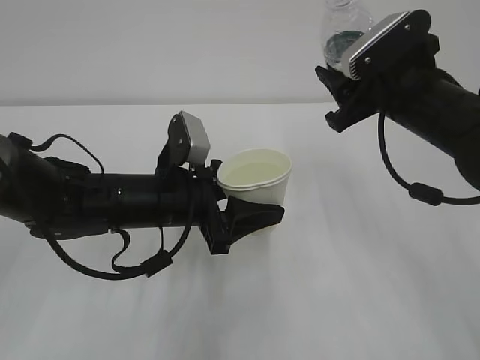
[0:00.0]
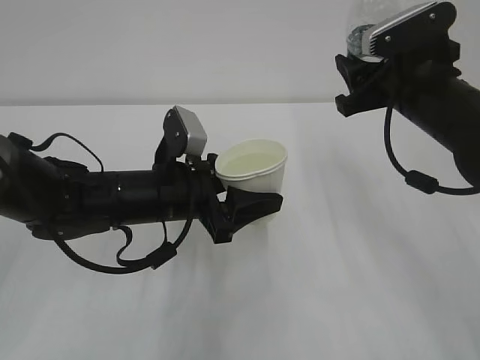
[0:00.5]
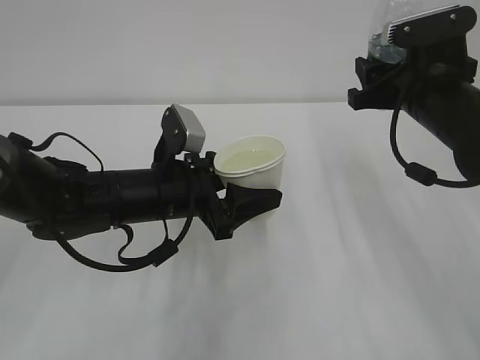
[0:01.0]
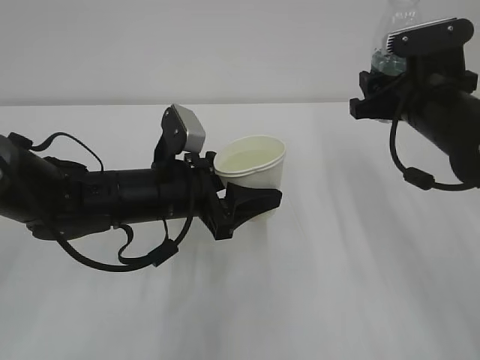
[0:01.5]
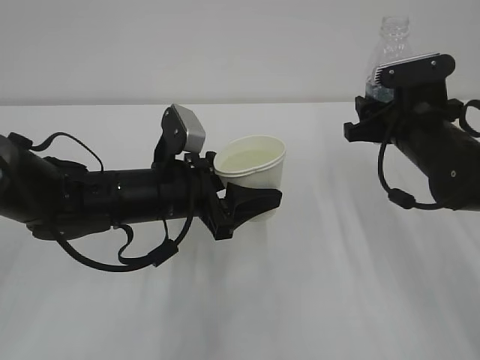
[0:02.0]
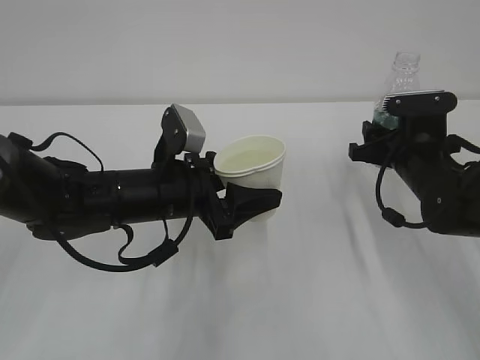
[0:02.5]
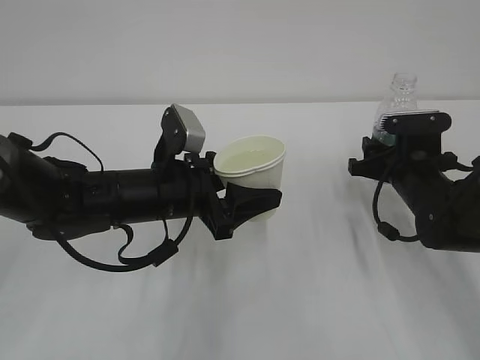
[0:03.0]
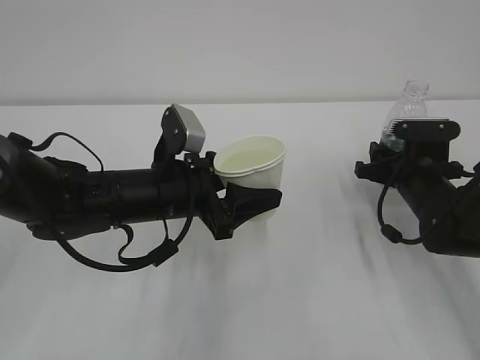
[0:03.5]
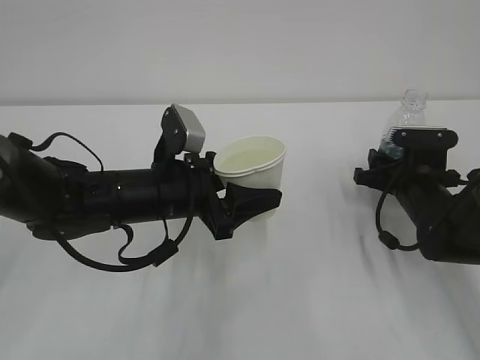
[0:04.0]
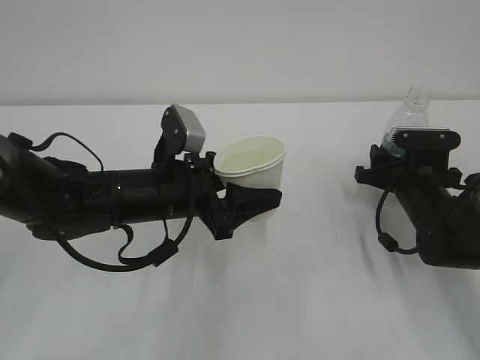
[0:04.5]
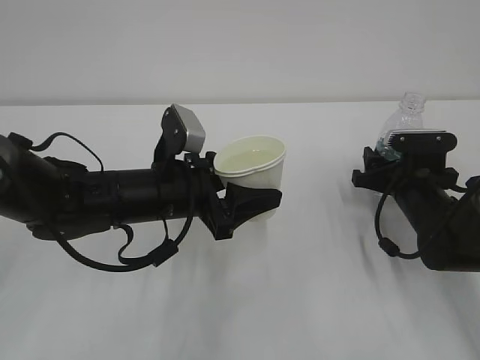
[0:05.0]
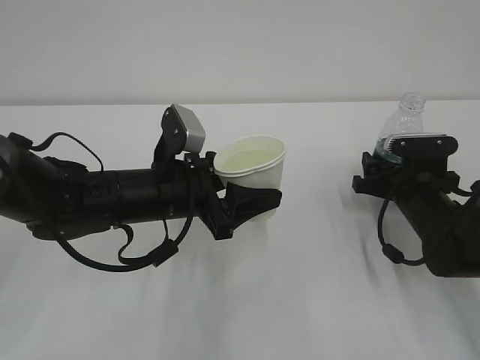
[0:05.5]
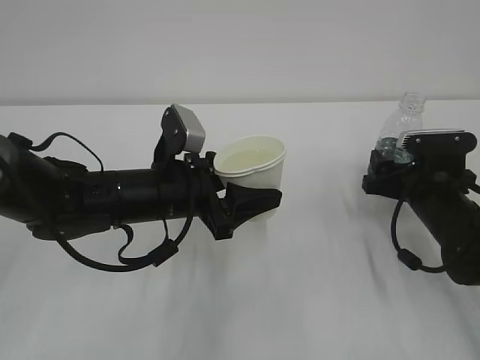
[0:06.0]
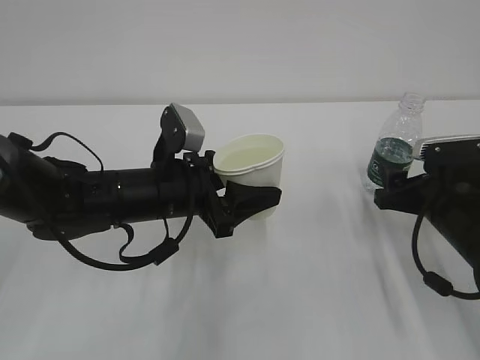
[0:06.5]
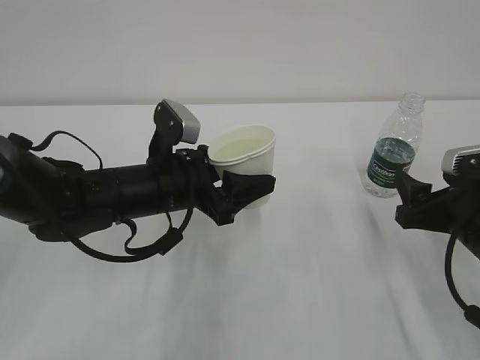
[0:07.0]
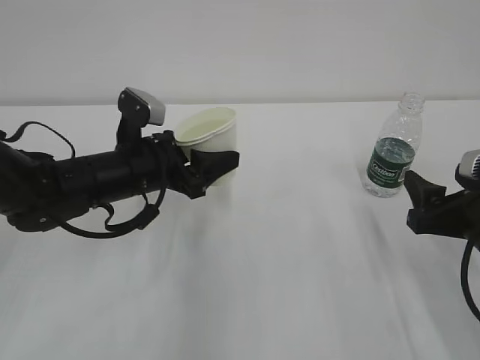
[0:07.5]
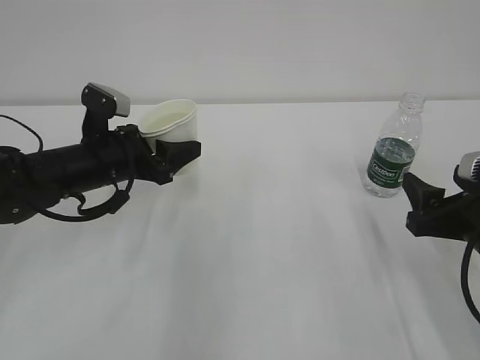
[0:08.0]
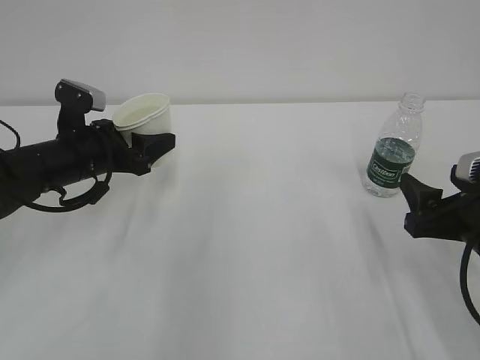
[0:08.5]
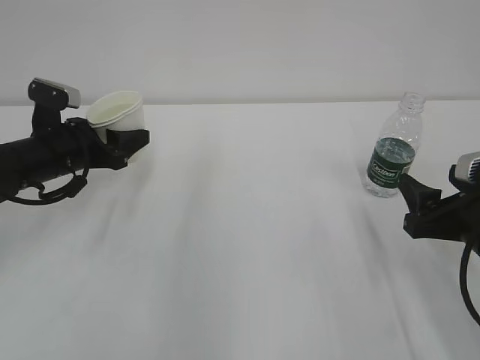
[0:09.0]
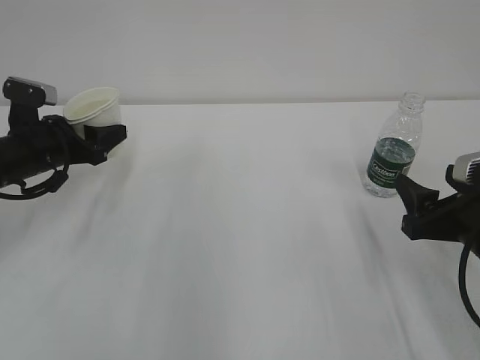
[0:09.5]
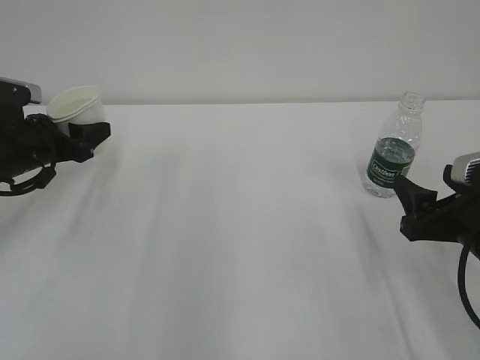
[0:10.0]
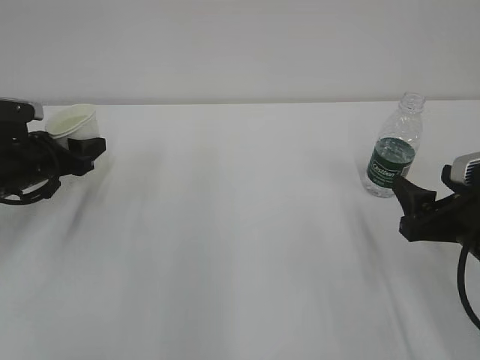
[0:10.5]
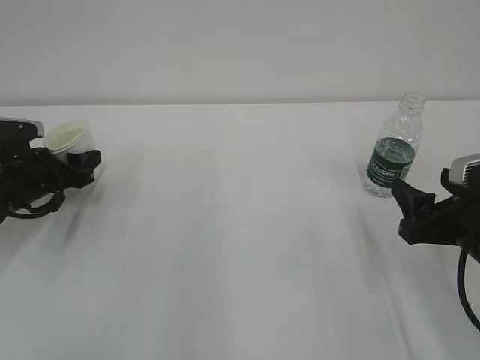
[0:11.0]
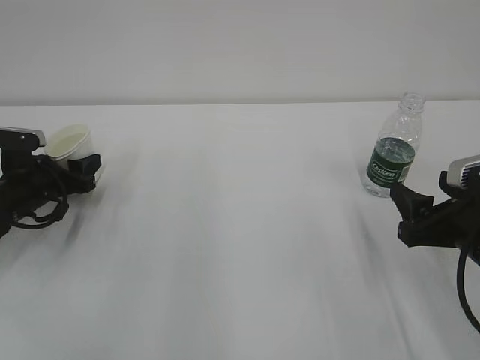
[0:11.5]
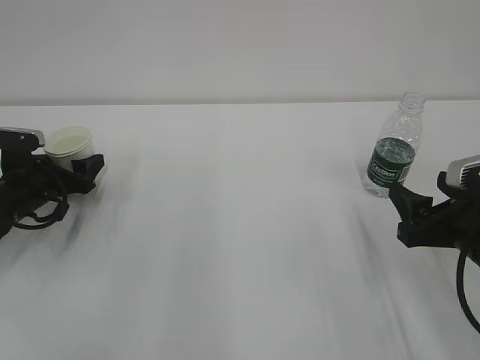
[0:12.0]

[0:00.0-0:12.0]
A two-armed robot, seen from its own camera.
0:00.0 to 0:02.0: The right gripper travels downward by some 5 cm.
0:02.0 to 0:04.0: The right gripper moves downward, about 10 cm.
0:04.0 to 0:06.0: The right gripper opens its fingers.
0:06.0 to 0:08.0: The right gripper travels backward and upward by about 10 cm. The left gripper goes roughly 10 cm to the left and forward.
0:08.0 to 0:10.0: The left gripper moves to the left, some 10 cm.
0:10.0 to 0:12.0: The left gripper shifts roughly 10 cm downward, and opens.

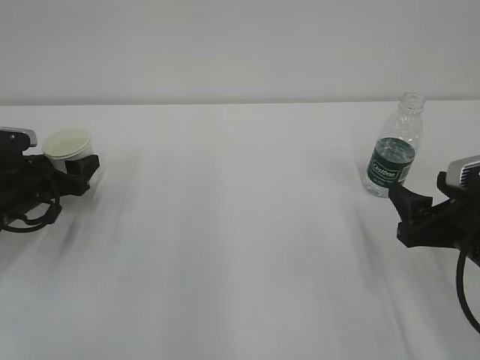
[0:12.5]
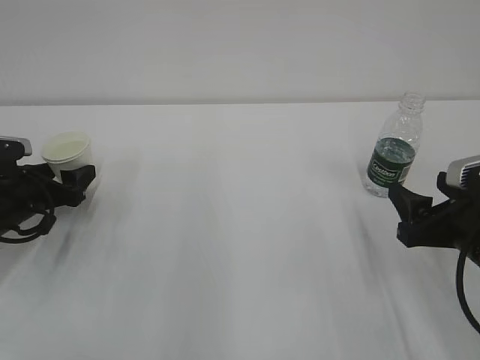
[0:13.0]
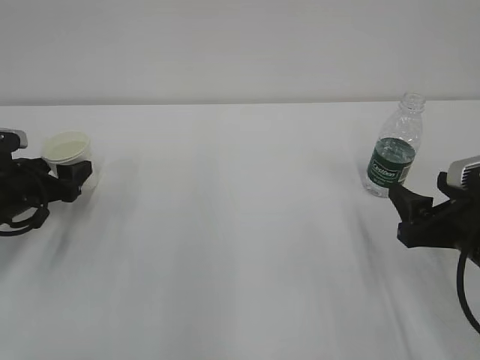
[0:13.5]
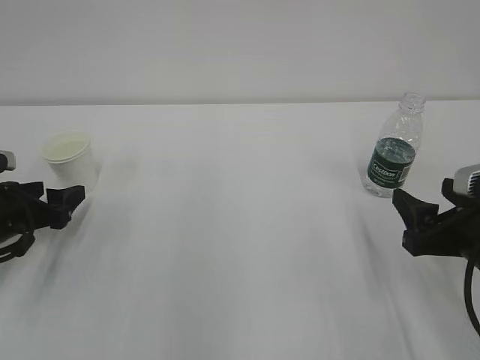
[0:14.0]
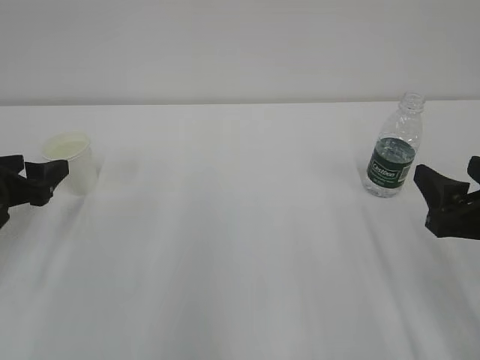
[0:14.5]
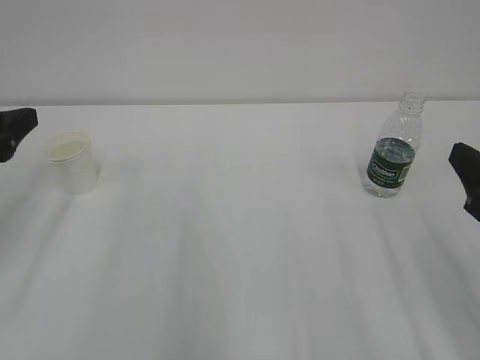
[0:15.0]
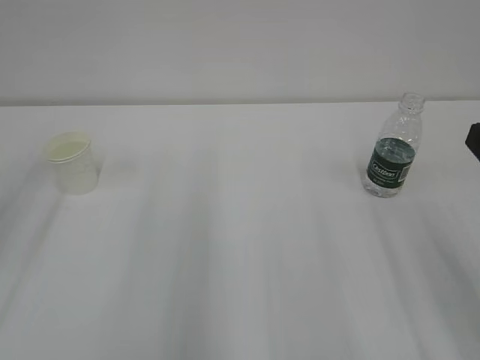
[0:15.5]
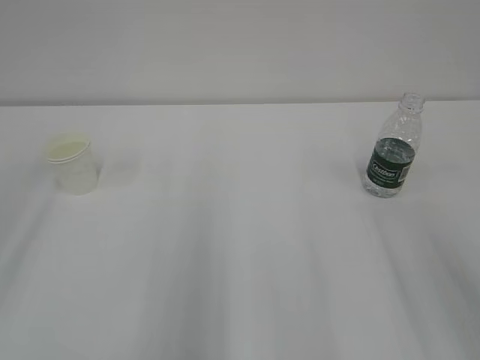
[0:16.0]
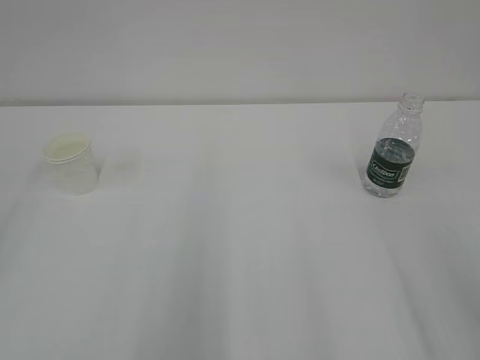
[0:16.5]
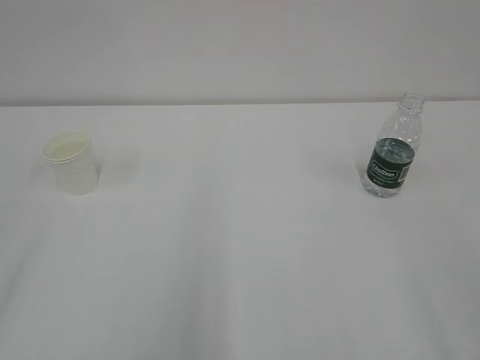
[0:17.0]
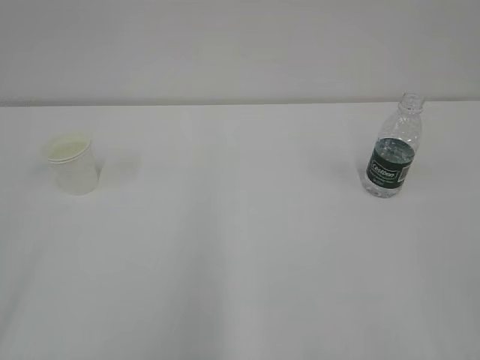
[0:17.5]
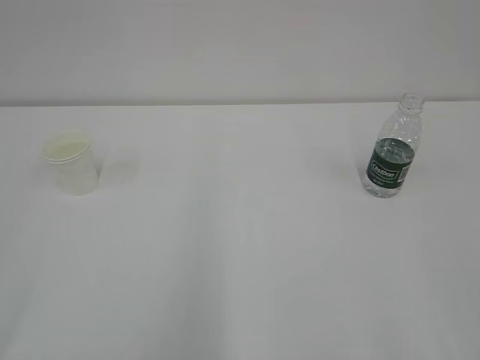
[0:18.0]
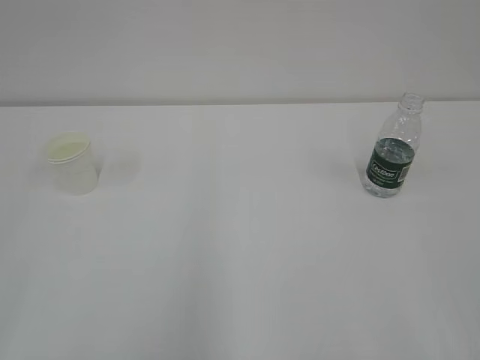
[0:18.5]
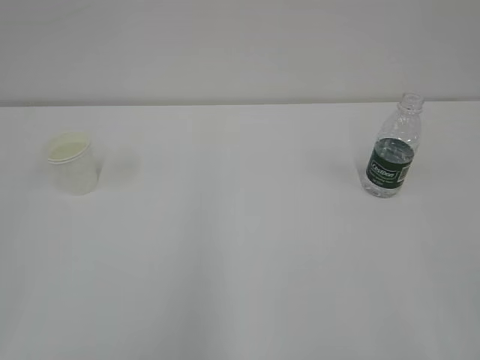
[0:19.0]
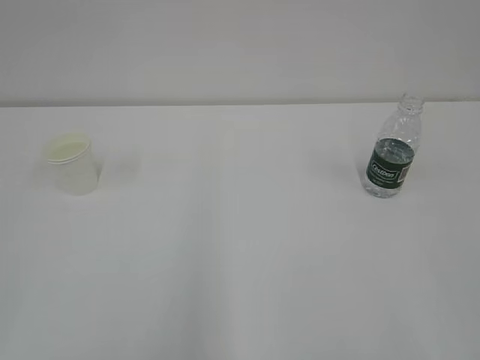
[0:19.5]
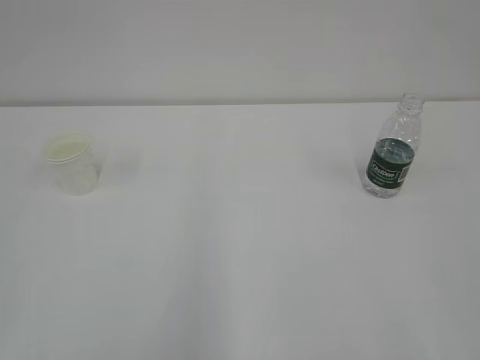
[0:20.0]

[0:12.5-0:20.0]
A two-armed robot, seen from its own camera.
0:12.5 to 0:14.5: The left gripper shifts some 10 cm backward and upward.
0:14.5 to 0:16.5: The right gripper heads upward and backward, covering roughly 20 cm, while the left gripper moves backward and upward, some 25 cm.

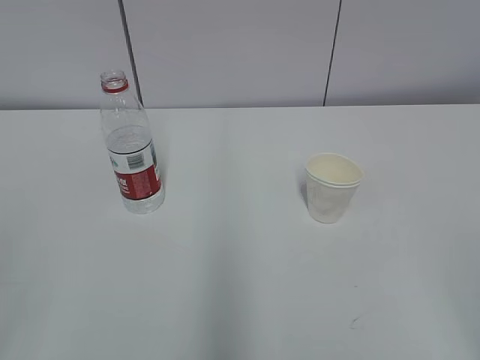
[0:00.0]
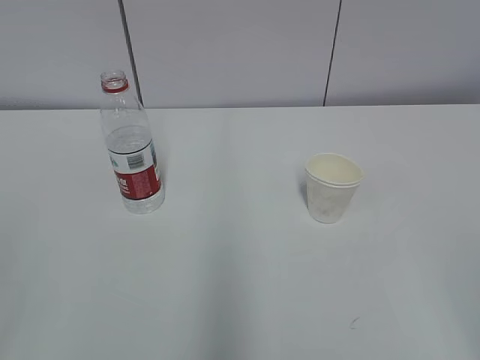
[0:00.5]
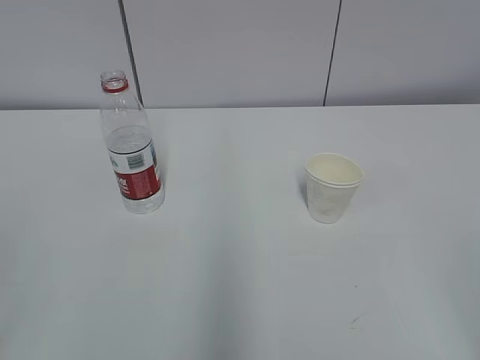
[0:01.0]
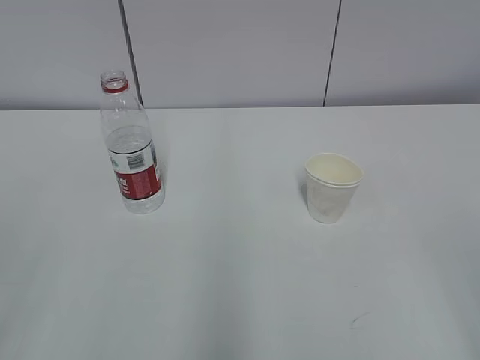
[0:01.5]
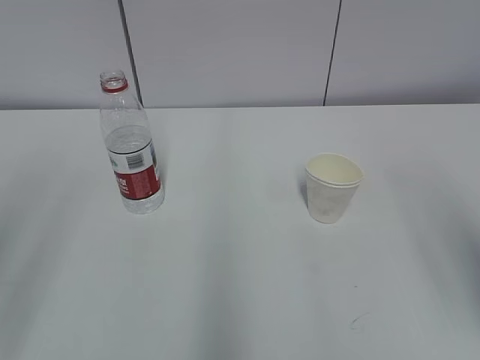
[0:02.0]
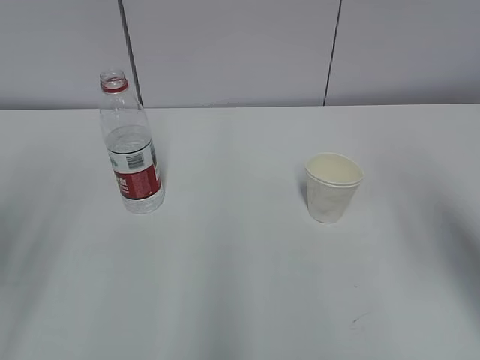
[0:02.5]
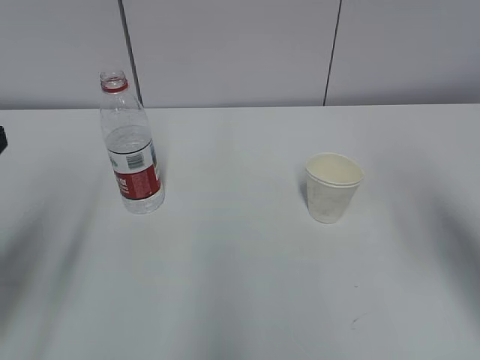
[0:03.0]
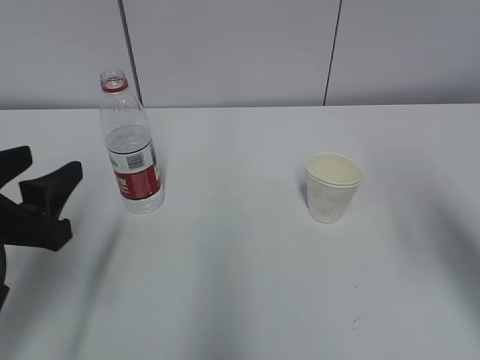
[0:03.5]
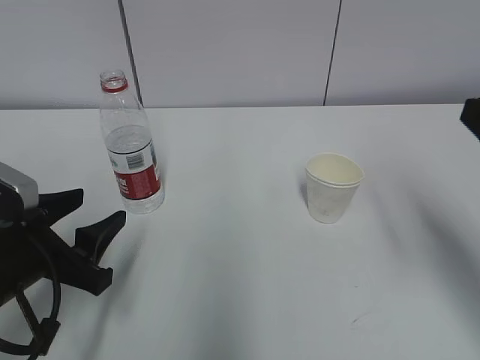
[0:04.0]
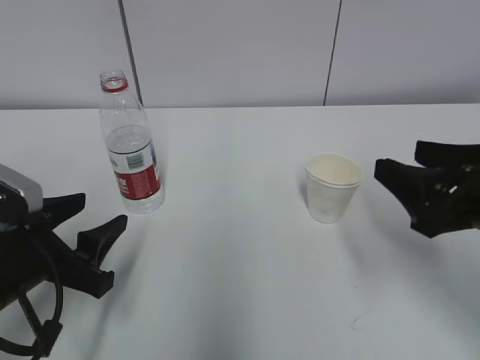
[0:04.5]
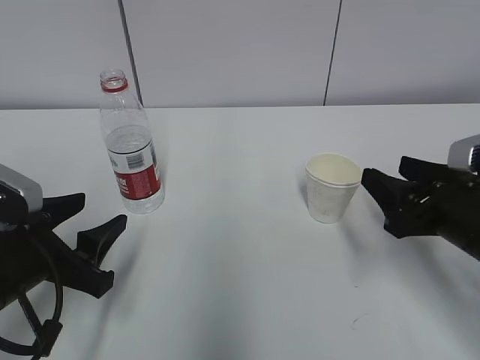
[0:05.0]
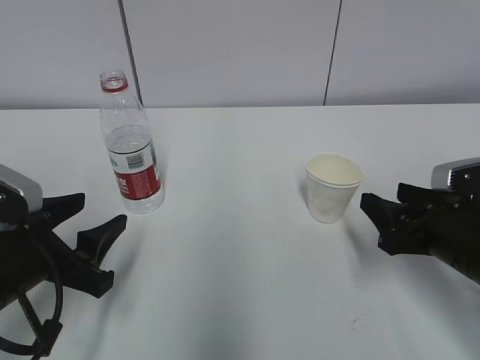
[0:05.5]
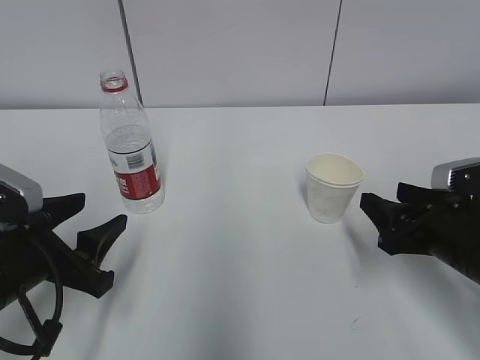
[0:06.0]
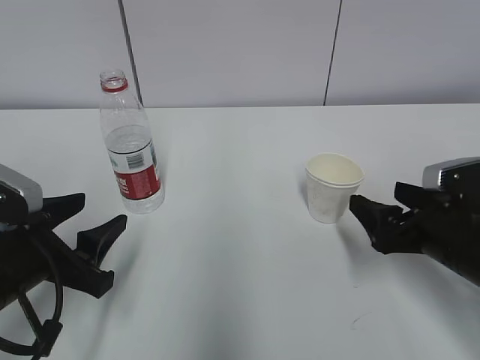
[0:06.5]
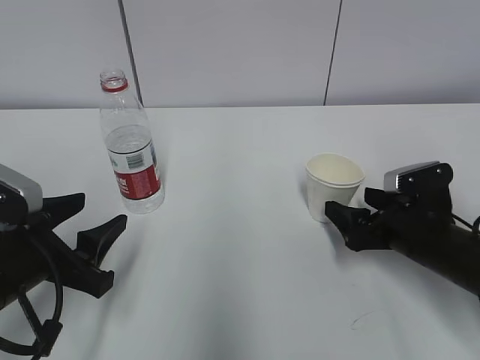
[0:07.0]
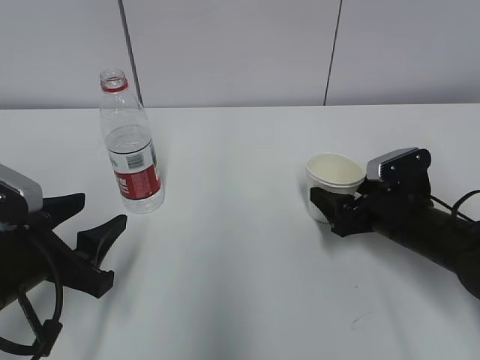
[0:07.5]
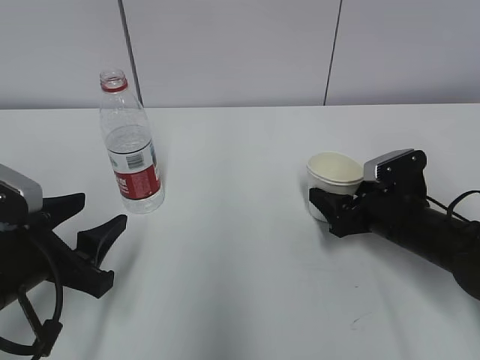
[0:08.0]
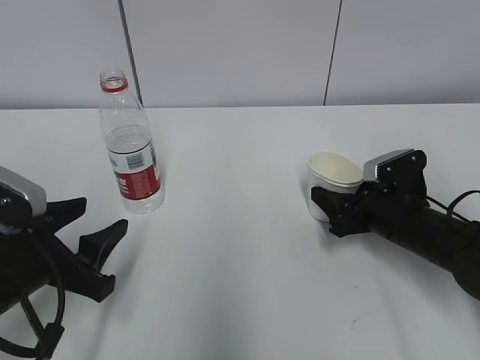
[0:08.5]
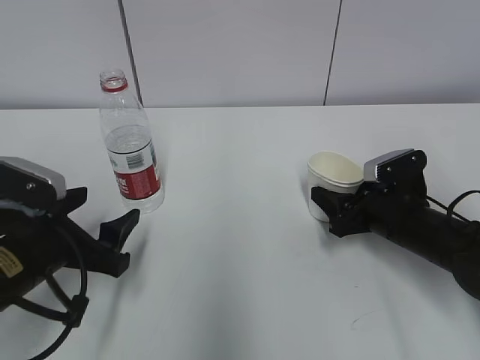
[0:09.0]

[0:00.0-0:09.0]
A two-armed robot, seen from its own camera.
Step, 0:00.0 to 0:08.5: Grab the water bottle with the left hand.
0:02.0 to 0:04.5: The right gripper is displaced downward and forward by some 15 cm. Meanwhile the left gripper travels downward, forward and to the right by roughly 25 cm.
0:04.5 to 0:07.0: The right gripper travels downward and forward by roughly 15 cm, and opens its fingers.
0:07.0 to 0:09.0: The left gripper opens up; the right gripper closes.
